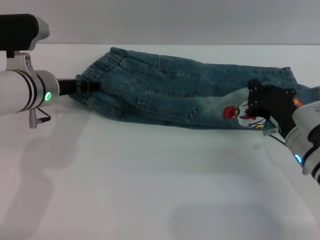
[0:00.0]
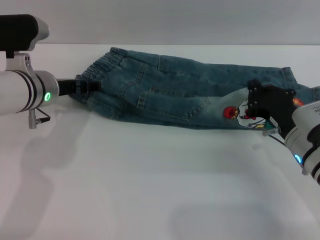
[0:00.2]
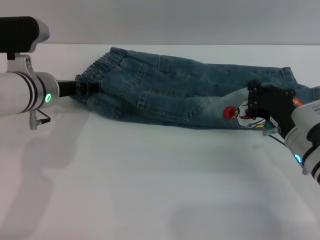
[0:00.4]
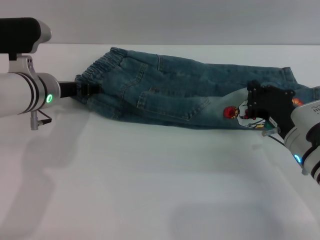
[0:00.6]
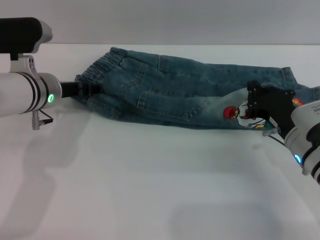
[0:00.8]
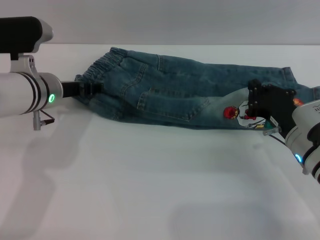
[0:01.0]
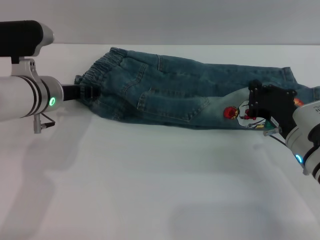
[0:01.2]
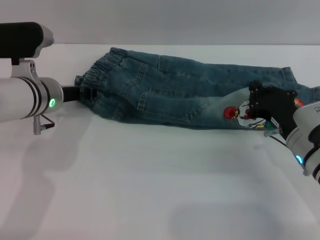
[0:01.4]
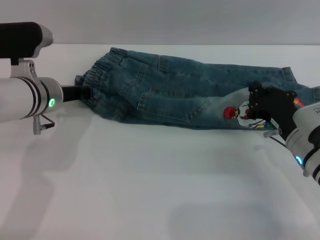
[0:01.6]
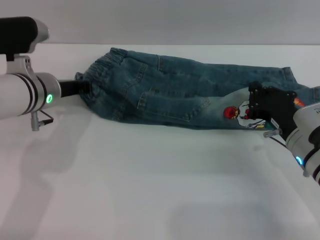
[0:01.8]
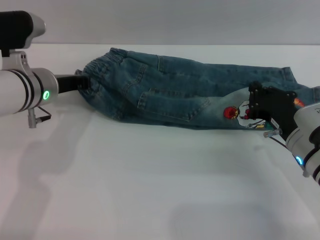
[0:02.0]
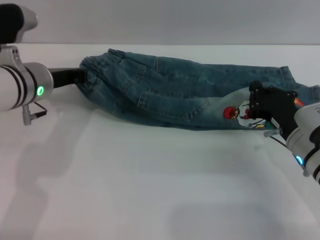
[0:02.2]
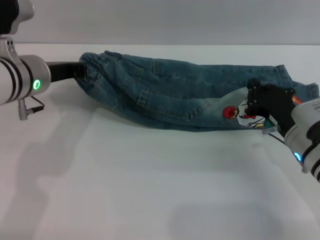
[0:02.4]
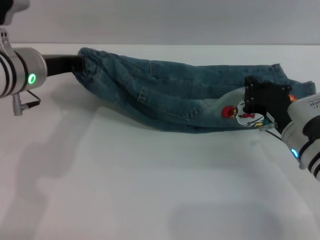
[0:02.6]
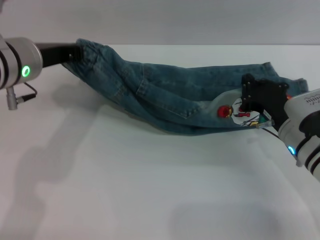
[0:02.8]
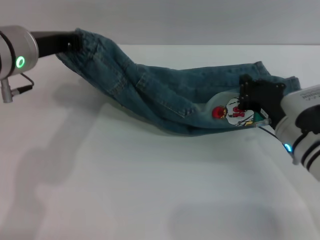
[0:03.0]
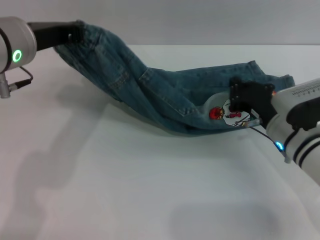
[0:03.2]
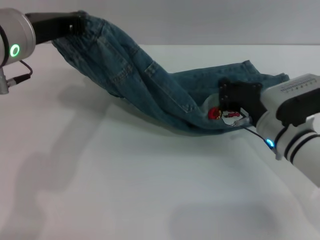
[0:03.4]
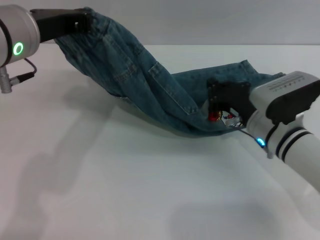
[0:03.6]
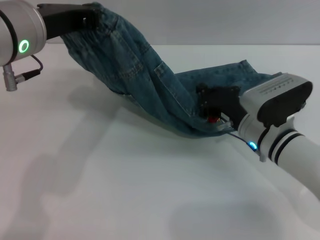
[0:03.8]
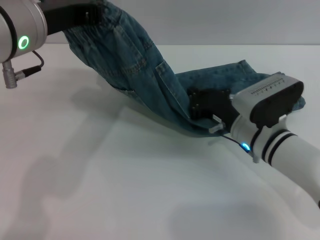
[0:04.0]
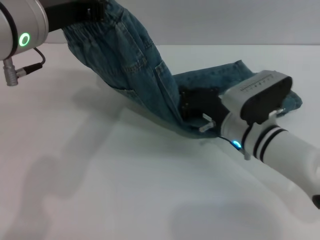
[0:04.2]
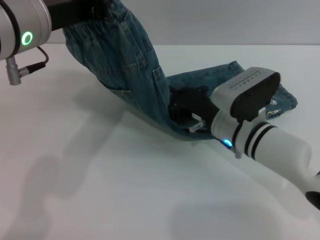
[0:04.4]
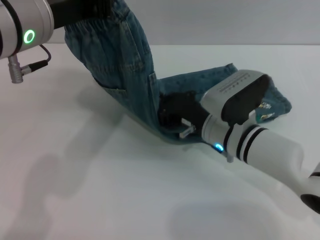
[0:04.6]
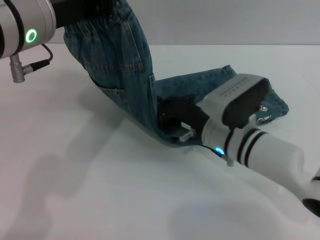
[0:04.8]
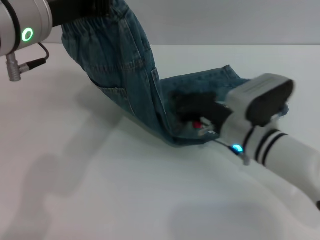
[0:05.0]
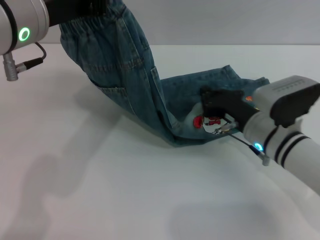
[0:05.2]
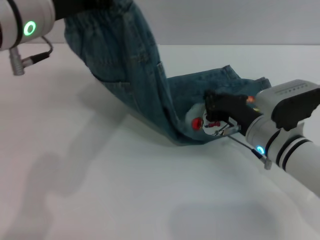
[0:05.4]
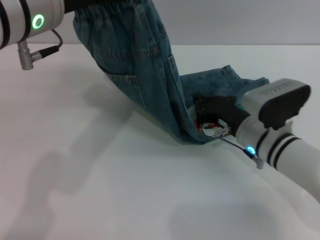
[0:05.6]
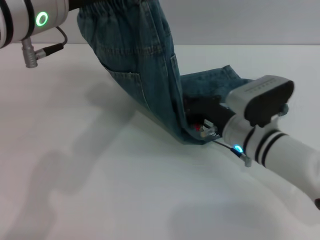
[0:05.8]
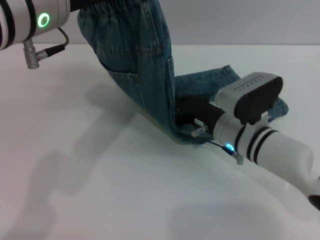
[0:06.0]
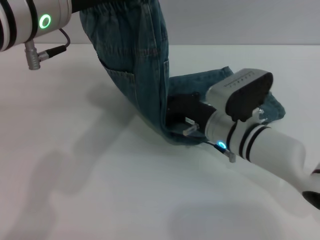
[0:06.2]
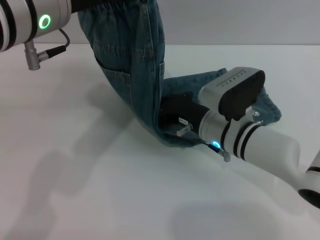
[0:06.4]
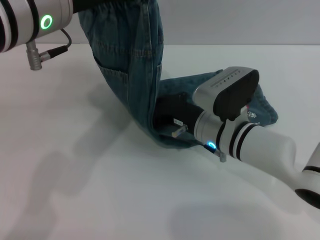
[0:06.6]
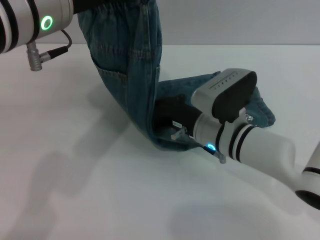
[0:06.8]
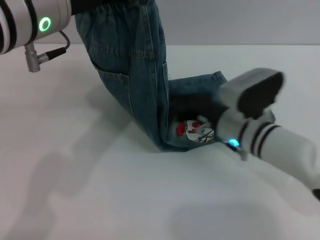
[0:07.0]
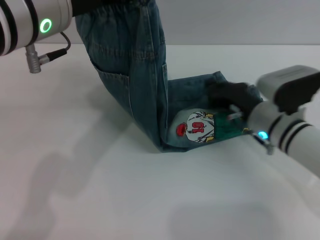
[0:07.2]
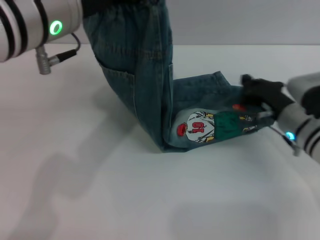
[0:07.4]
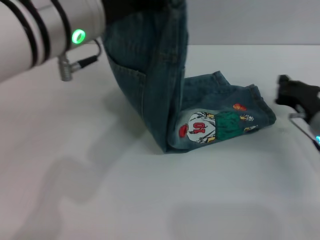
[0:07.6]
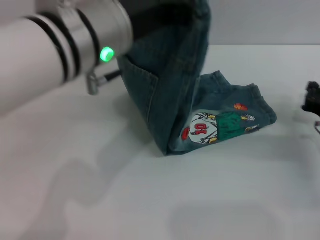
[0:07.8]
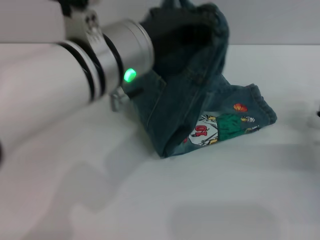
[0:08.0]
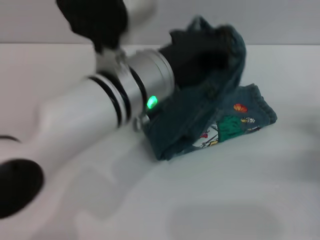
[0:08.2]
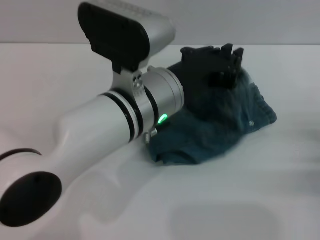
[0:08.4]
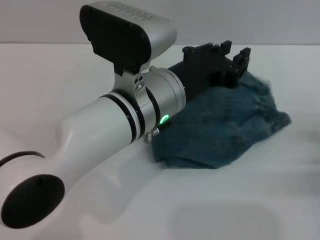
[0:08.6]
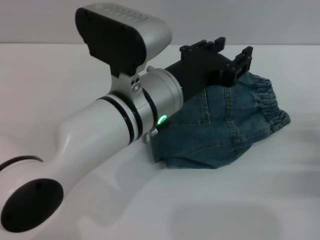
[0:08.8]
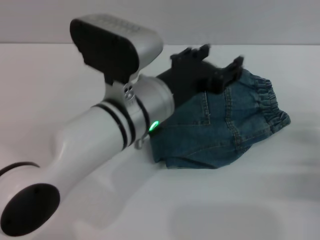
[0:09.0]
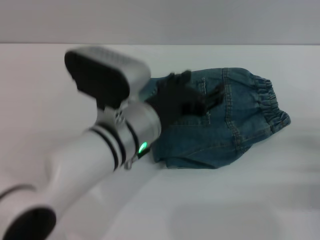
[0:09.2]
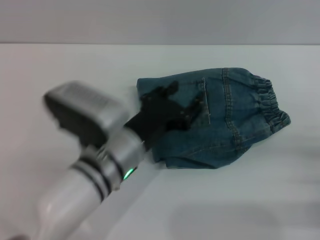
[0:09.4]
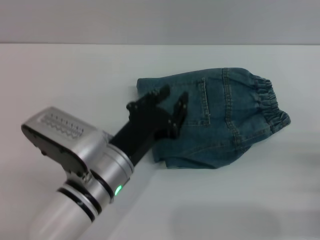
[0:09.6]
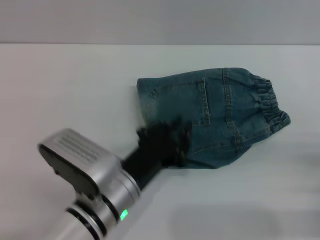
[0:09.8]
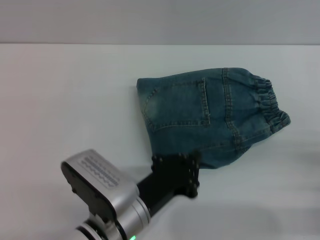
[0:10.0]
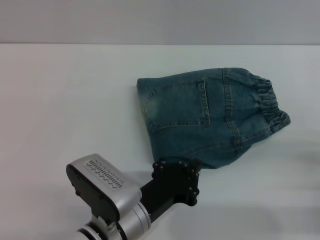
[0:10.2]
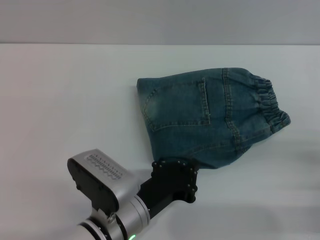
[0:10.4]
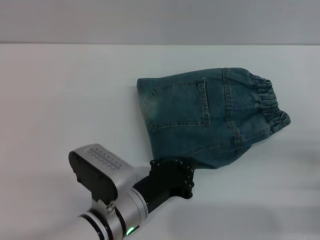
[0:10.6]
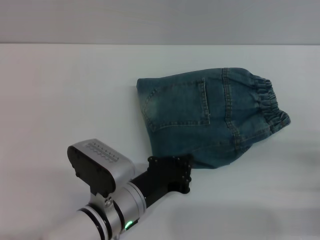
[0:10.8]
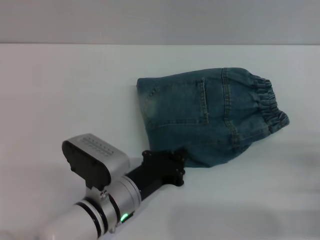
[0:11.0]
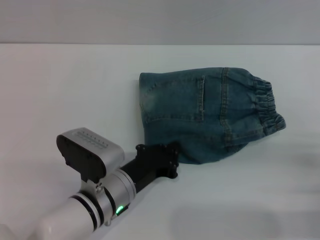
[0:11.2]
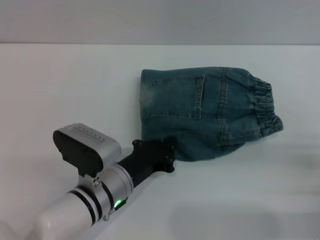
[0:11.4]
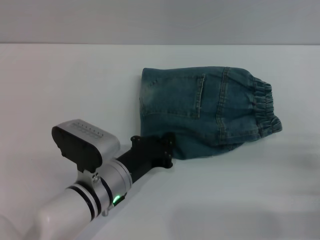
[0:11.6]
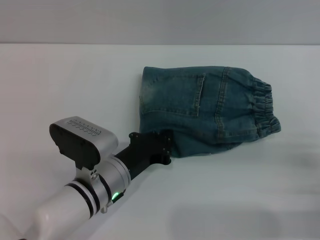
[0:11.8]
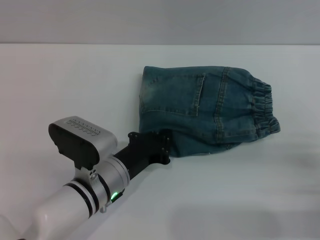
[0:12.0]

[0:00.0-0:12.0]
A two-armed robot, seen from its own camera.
Step, 0:00.0 to 0:08.8: Fold the pants from left to right with the left gripper.
0:00.0 to 0:01.6: The left gripper closes.
0:01.6 to 0:03.0: The left gripper is displaced upward by roughly 10 cm, and closes.
0:03.0 to 0:04.4: The left gripper is displaced upward by some 5 cm. The right gripper moves to the left, roughly 10 cm.
0:04.4 to 0:06.0: There are only small adjustments of the grippers.
0:06.0 to 0:07.6: The right gripper travels to the right by approximately 15 cm.
0:07.6 to 0:09.0: The left gripper travels downward and to the right by about 15 cm, and opens its fingers; the right gripper goes some 10 cm backward and to the right.
0:09.0 to 0:10.4: The left gripper is displaced downward and backward by about 15 cm, and closes its fingers.
0:10.4 to 0:12.0: The left gripper travels forward by about 5 cm.

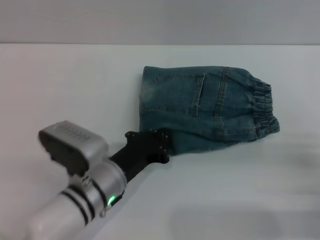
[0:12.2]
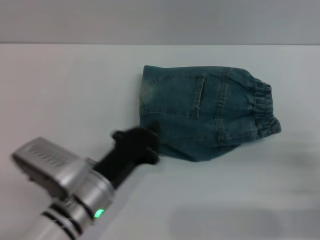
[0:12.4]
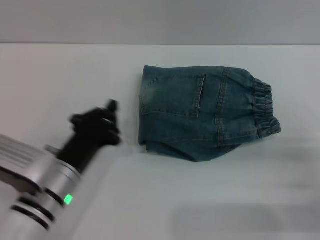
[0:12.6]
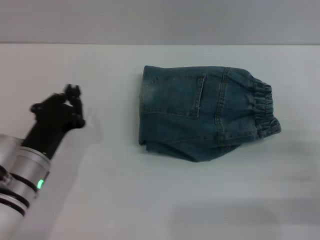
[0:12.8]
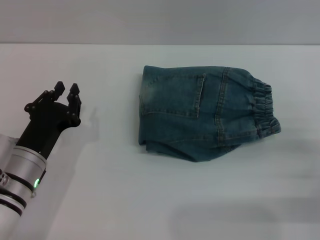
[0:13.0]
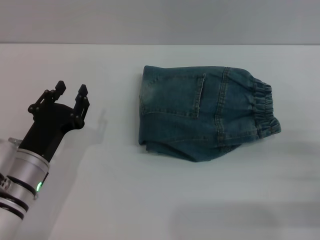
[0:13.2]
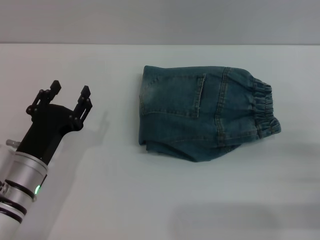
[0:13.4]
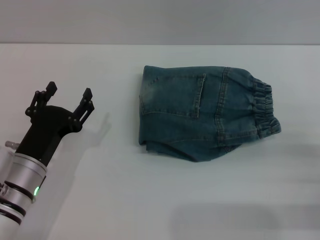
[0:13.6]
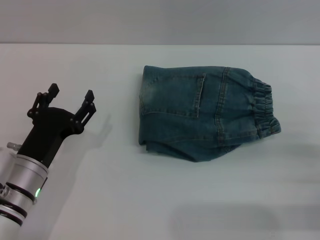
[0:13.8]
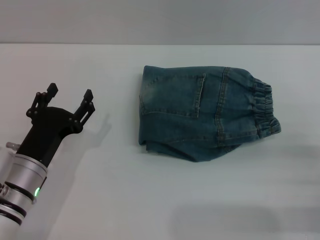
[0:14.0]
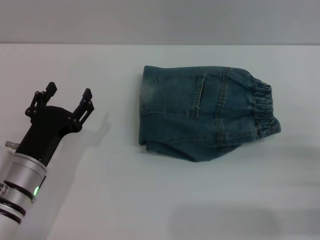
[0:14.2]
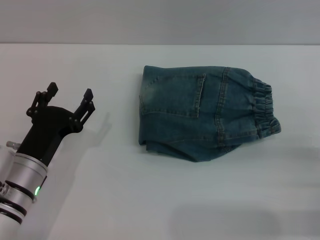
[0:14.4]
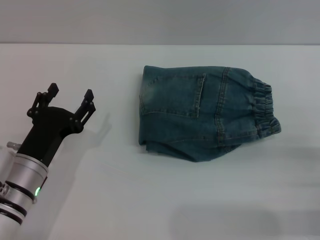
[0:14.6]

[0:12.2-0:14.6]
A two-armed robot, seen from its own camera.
0:12.2 to 0:13.4: The right gripper opens. Meanwhile the left gripper is displaced to the left by about 10 cm, and opens its fingers.
0:13.4 to 0:14.6: The left gripper opens its fingers.
